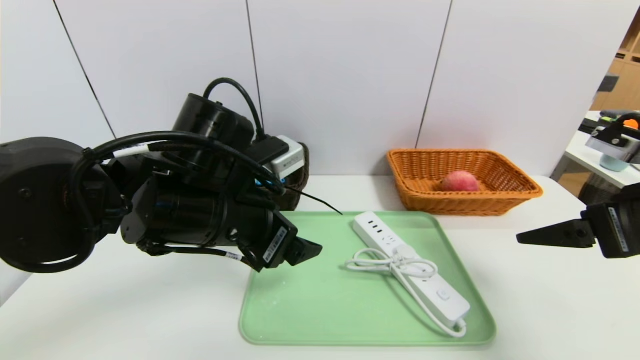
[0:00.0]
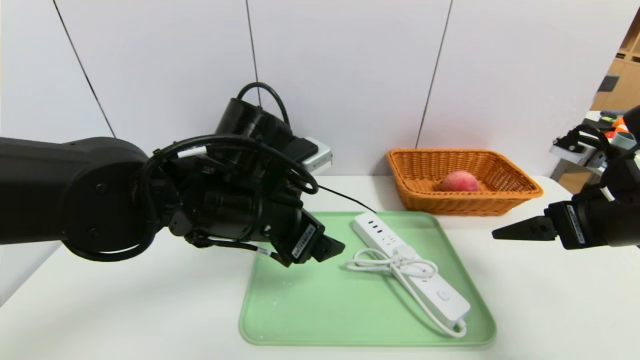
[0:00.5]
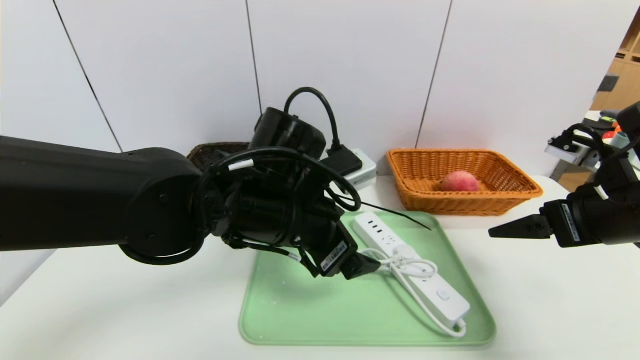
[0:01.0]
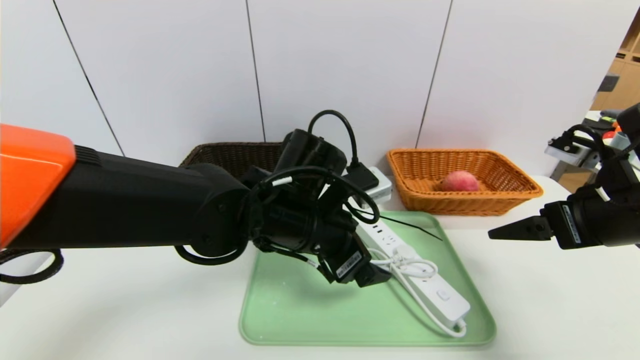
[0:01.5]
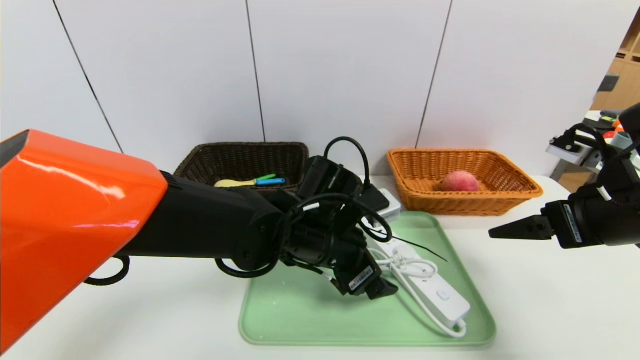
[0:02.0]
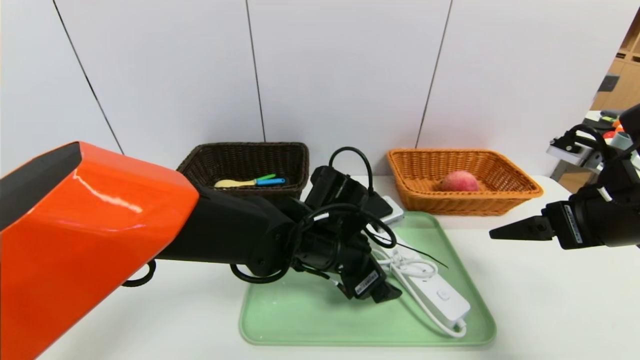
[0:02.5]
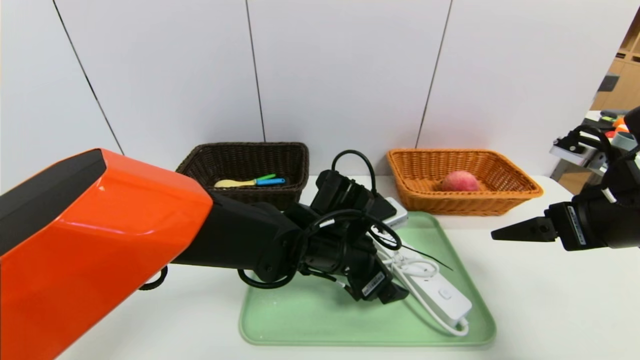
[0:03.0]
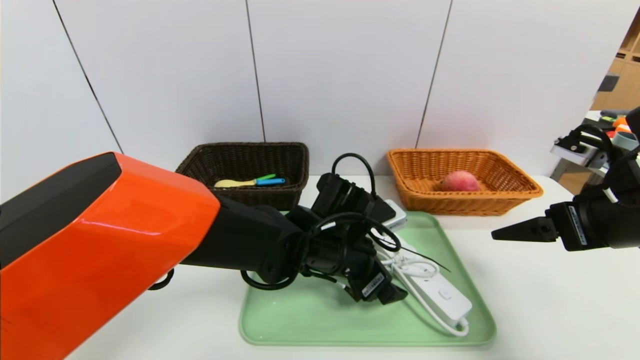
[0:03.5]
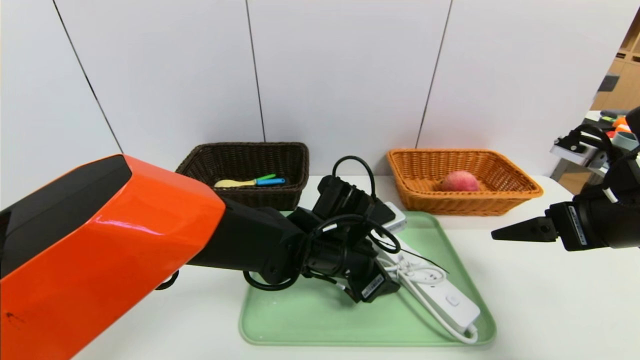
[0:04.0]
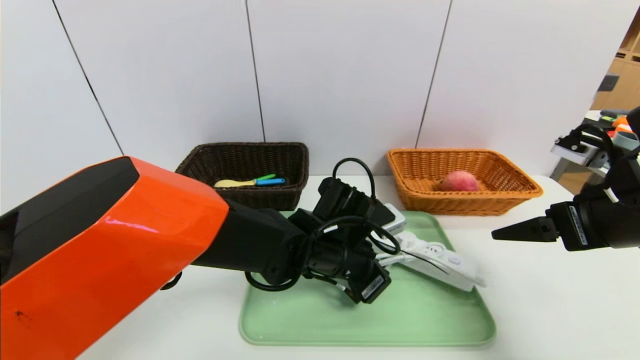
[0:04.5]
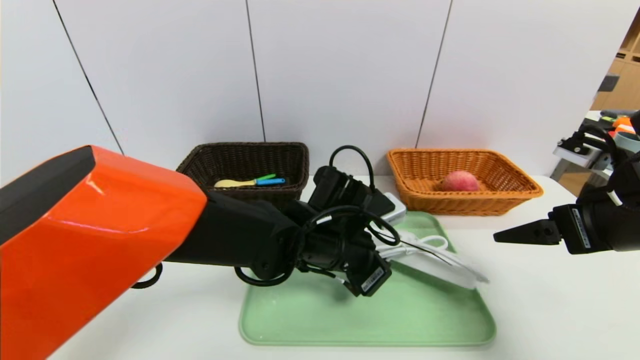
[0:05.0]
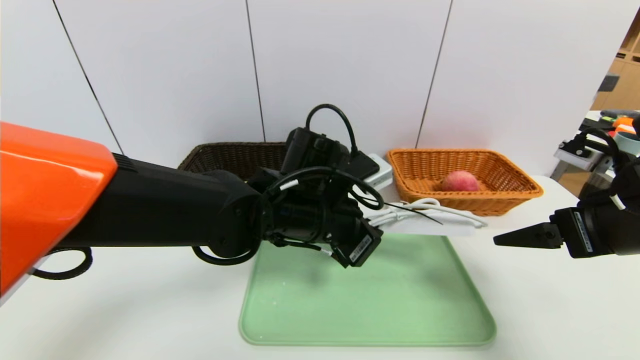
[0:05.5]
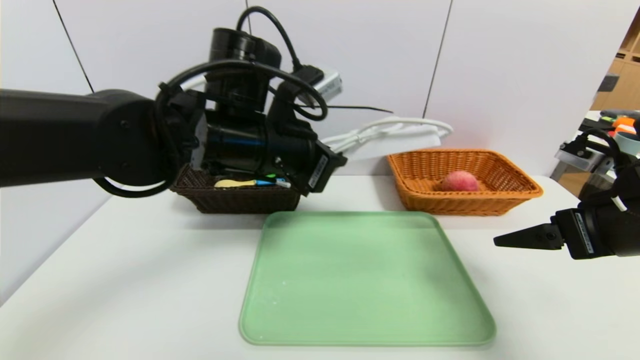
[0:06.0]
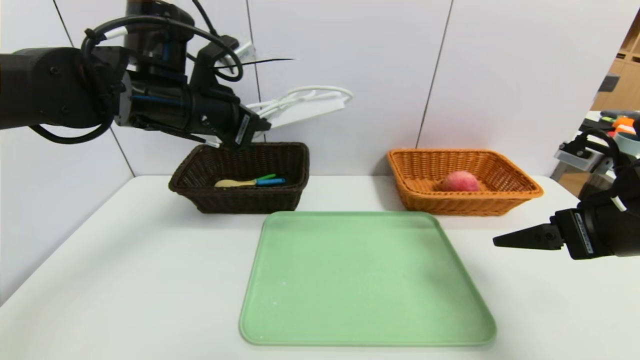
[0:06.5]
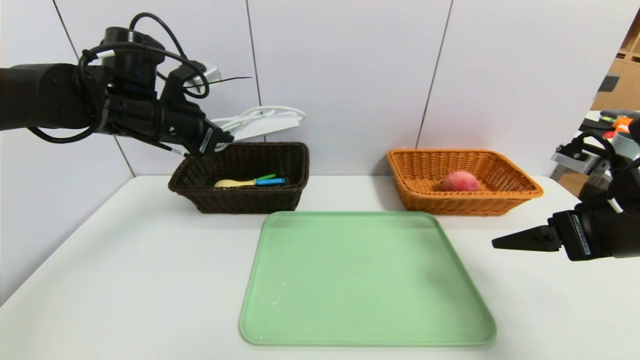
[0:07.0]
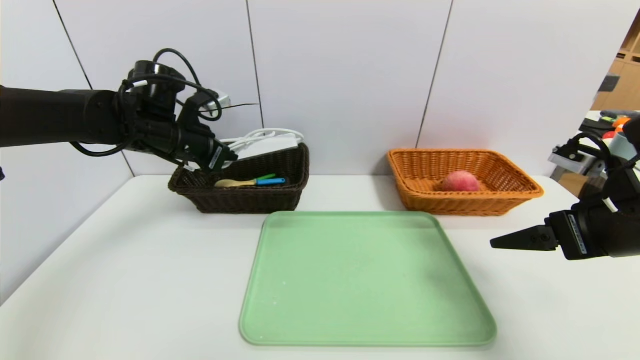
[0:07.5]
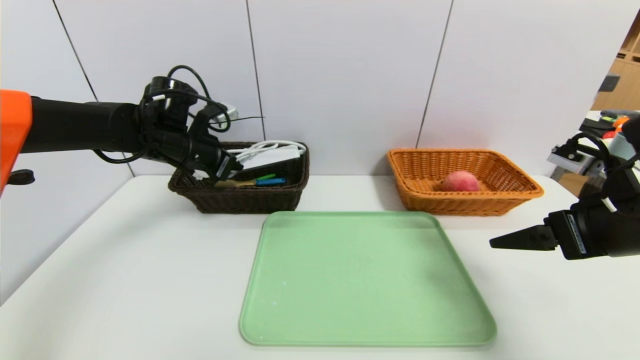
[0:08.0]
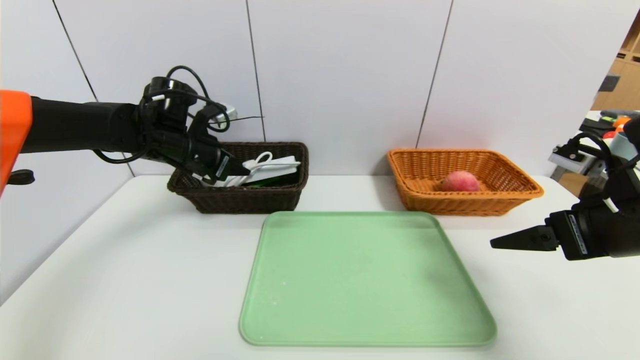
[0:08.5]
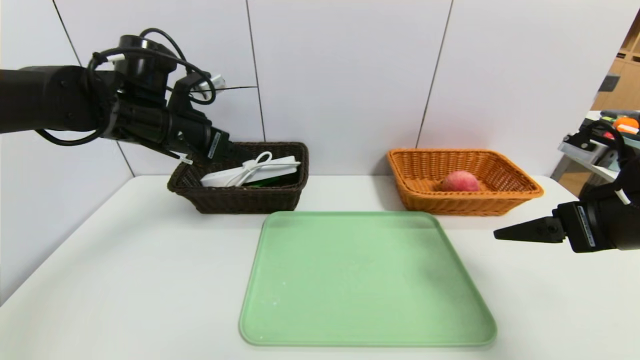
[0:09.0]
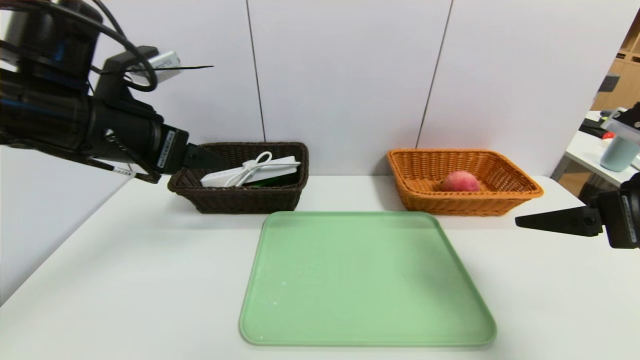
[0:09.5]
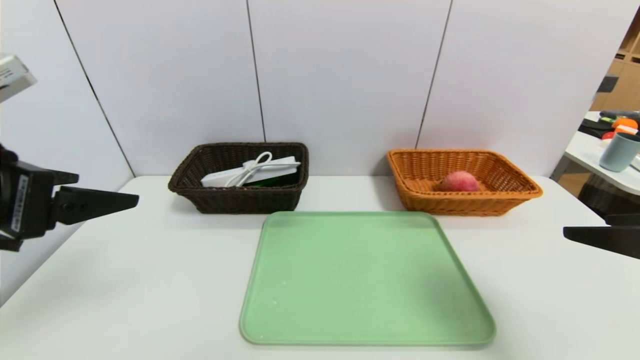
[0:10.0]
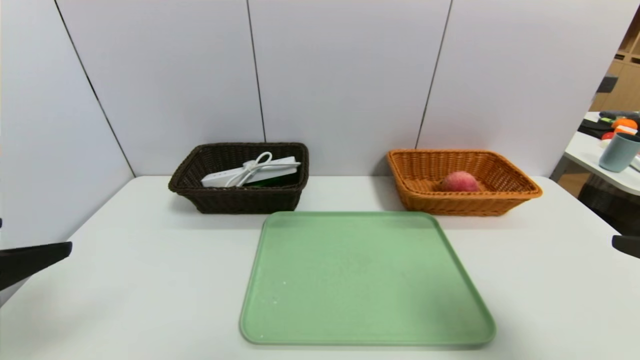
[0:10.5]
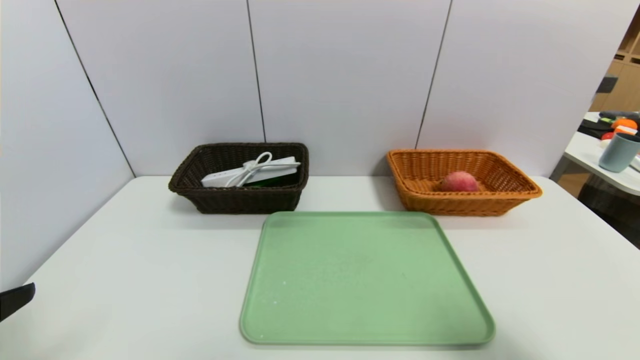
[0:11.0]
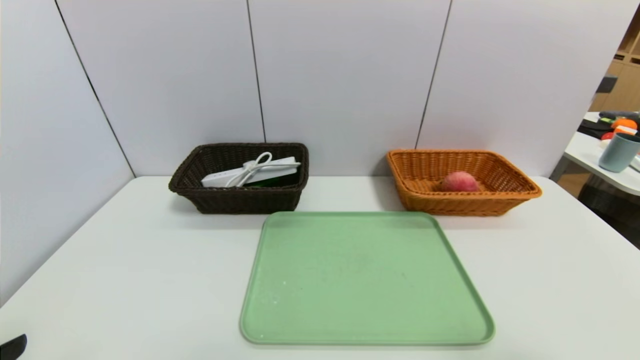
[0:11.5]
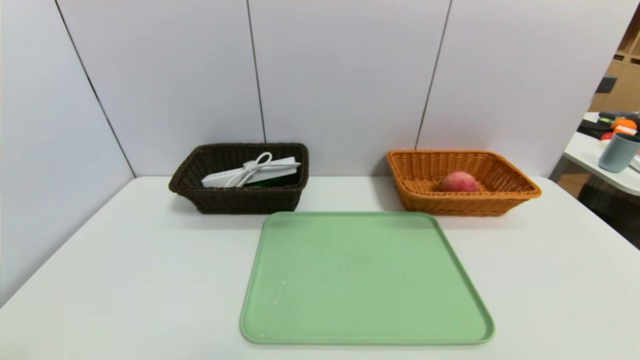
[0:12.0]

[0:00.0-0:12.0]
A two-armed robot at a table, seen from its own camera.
Task of the whole recording: place the food in the right basket with the right gripper, and place the non food items in the left basket with the left gripper.
Step, 0:00.0 to 0:09.0: Grasp the power strip and put it in the left basket.
0:00.0 to 0:02.0: The left gripper travels to the right and downward by approximately 15 cm.
0:02.0 to 0:04.0: The left gripper closes.
0:04.0 to 0:06.0: The left gripper shifts about 20 cm upward and to the left, and closes up.
0:06.0 to 0:08.0: The left gripper shifts some 20 cm to the left, forward and downward.
0:08.0 to 0:10.0: The right gripper shifts approximately 10 cm backward. The left gripper travels backward by about 25 cm, and opens its fingers.
0:10.0 to 0:12.0: The left gripper moves backward and downward, some 20 cm. The right gripper shifts roughly 15 cm backward.
